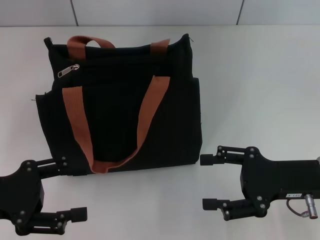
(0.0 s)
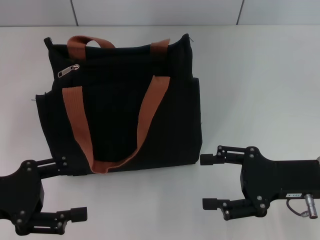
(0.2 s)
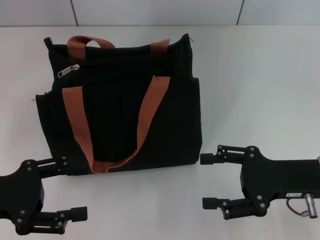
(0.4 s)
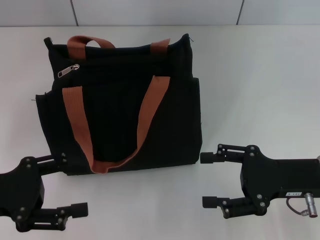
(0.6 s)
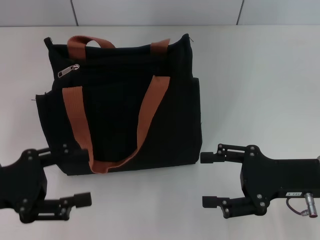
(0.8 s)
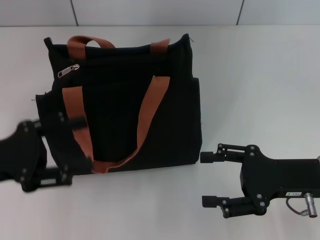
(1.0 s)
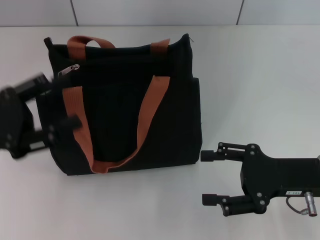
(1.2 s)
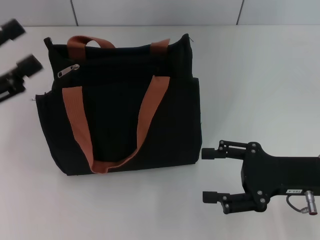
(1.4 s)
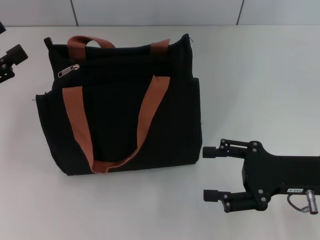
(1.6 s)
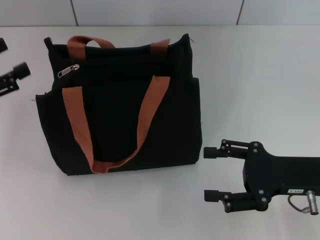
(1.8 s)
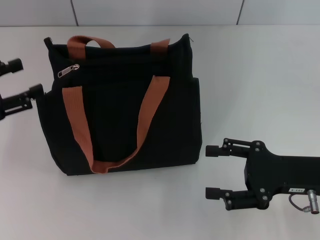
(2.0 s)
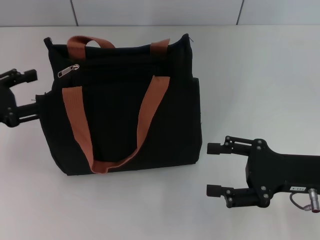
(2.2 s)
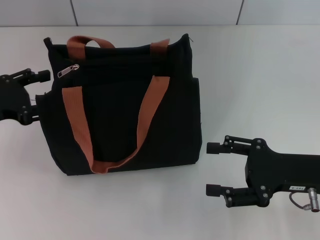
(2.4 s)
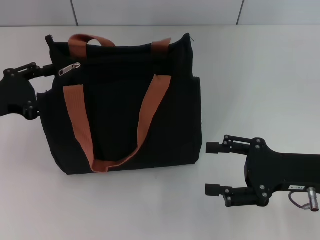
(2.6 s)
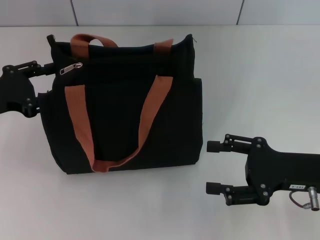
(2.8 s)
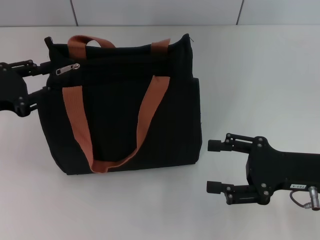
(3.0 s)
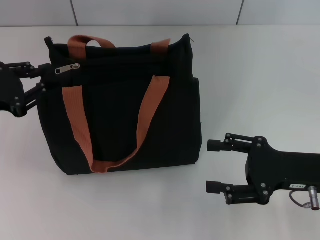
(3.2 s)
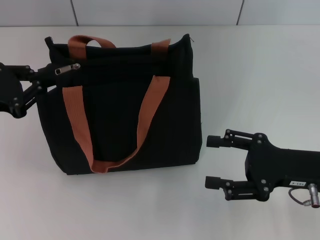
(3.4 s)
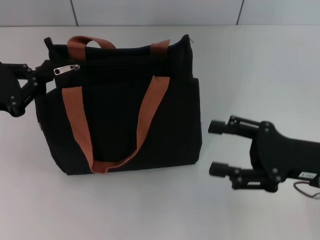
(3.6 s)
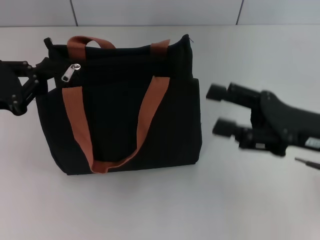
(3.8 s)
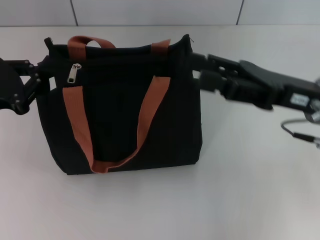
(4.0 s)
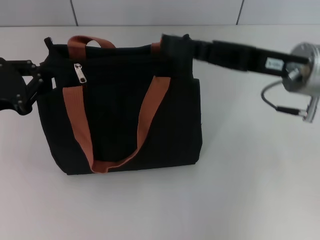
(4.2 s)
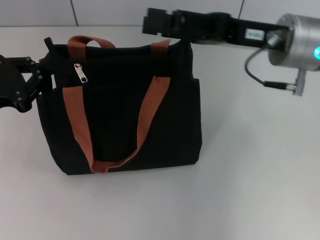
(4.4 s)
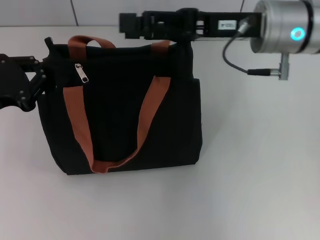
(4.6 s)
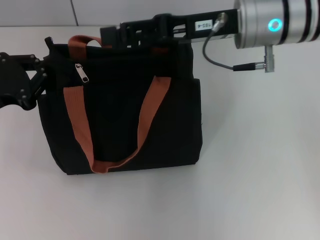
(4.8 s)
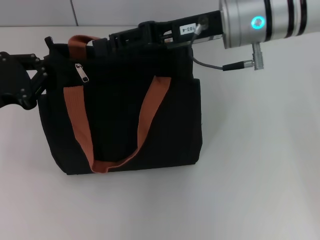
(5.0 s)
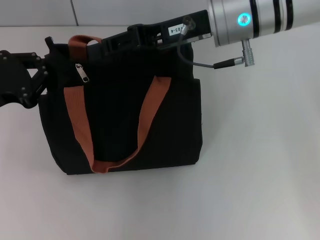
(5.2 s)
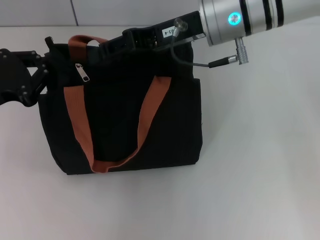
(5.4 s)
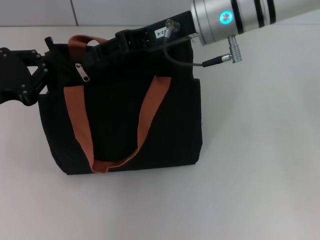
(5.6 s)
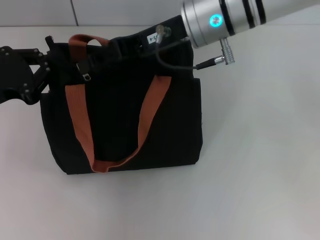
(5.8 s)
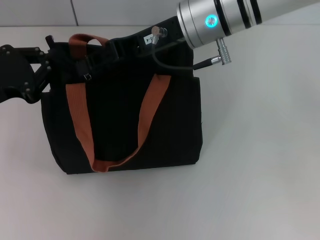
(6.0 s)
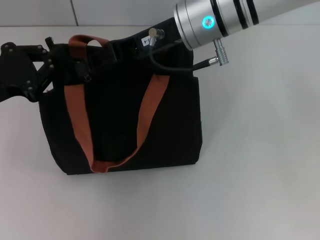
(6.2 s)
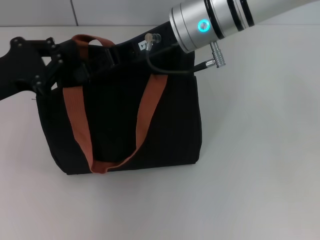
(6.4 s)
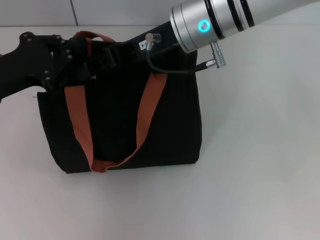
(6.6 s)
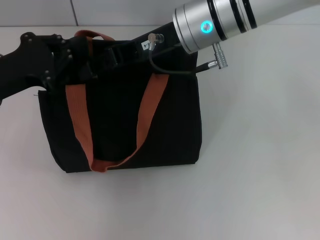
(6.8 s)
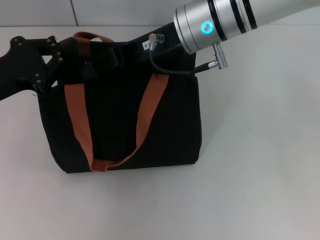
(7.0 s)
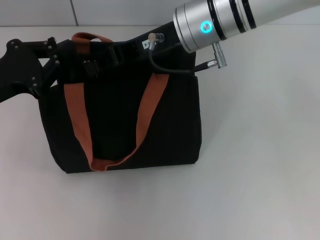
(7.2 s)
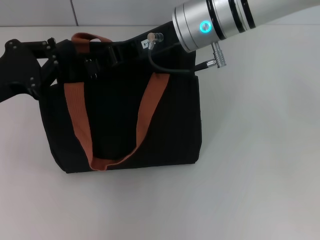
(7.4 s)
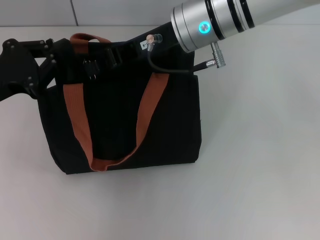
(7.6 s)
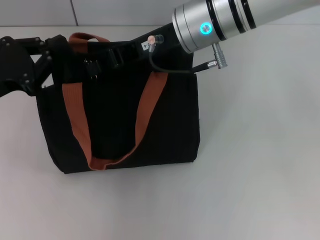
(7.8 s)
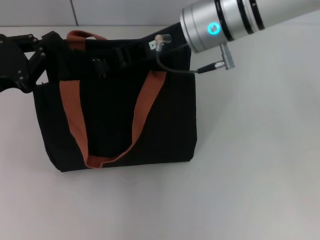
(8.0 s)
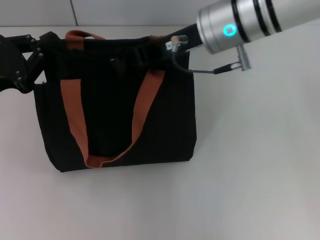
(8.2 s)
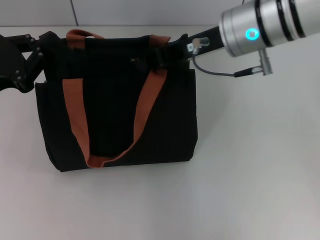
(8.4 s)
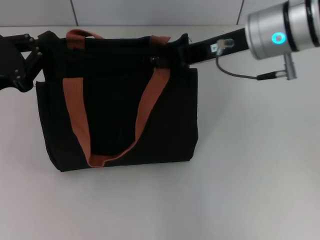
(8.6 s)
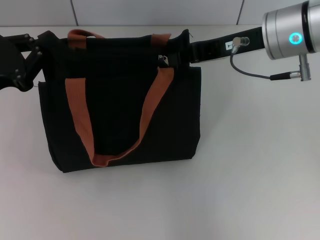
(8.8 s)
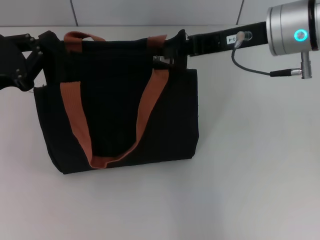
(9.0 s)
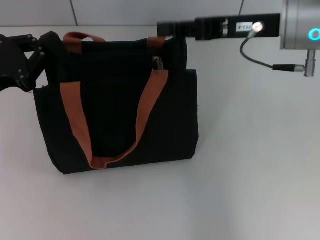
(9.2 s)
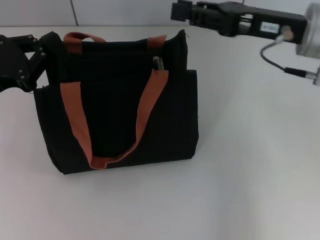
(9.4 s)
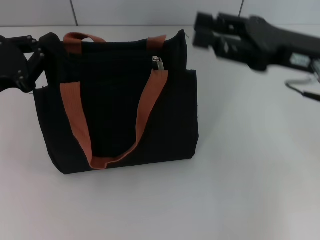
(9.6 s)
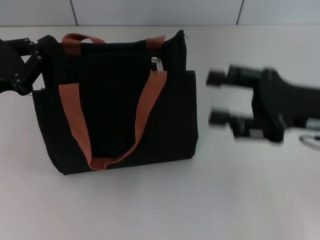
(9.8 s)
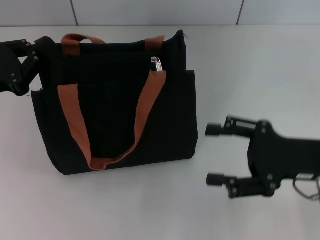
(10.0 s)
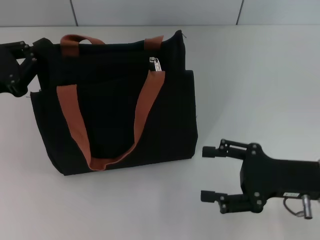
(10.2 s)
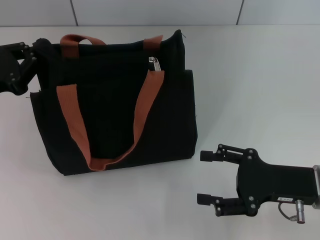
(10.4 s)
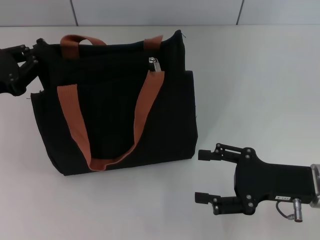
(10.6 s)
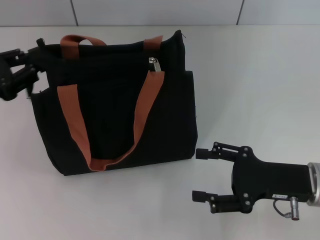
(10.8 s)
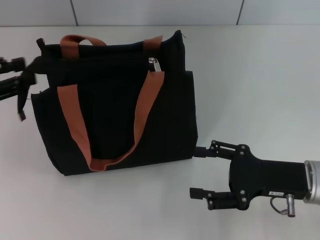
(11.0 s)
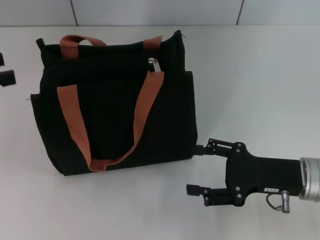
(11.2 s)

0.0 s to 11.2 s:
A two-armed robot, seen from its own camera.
Step, 0.0 to 9.0 s: Pull up the zipper with your right hand.
Step, 9.2 to 11.0 s: Grab the zipper with your left hand.
0.0 to 1.6 s: The left gripper heads forward, covering about 5 cm.
1.6 to 3.2 s: The left gripper closes up.
3.2 to 4.8 s: The right gripper travels forward, upward and to the left by approximately 25 cm. The left gripper closes.
4.8 to 6.4 s: The right gripper shifts about 5 cm to the left, and closes up.
6.4 to 8.0 s: The right gripper closes.
8.0 to 9.6 s: The right gripper goes approximately 15 cm to the right and backward, and opens up.
9.6 to 11.2 s: The left gripper goes some 10 cm to the left and upward, and opens up, while the right gripper is displaced downward and backward by approximately 15 cm, and opens its fingers.

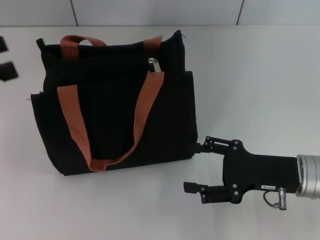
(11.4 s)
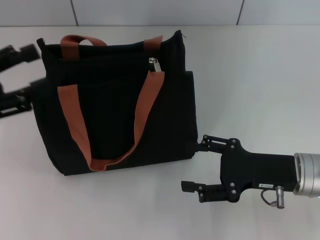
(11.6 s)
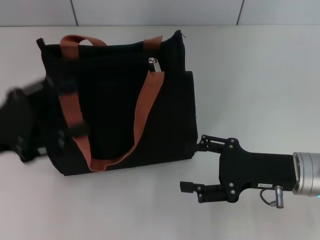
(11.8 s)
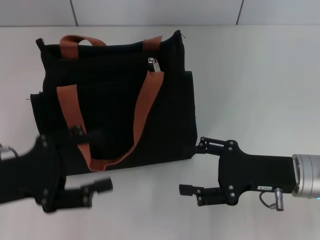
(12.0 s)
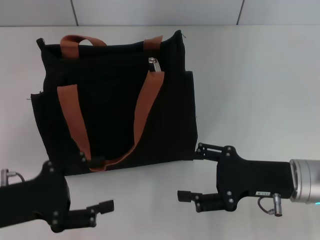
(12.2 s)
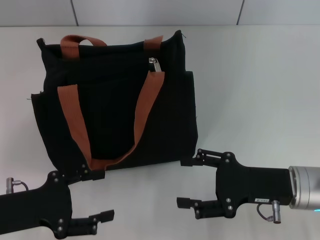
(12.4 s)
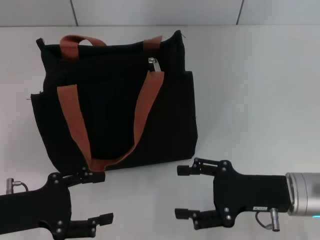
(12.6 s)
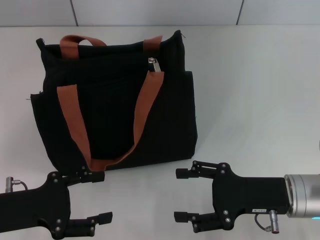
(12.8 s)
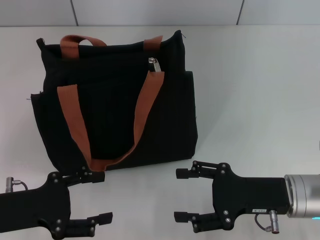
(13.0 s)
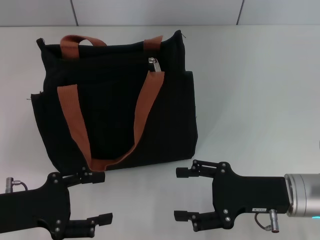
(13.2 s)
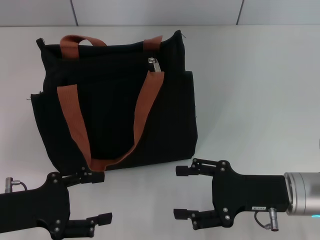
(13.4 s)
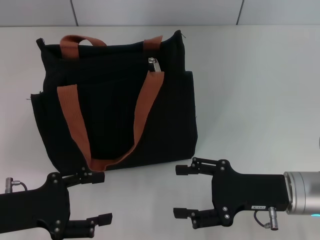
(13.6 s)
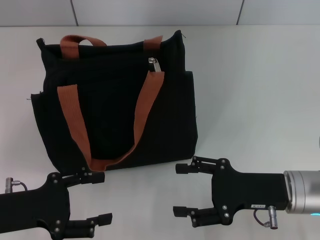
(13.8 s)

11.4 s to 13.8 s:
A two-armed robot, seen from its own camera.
11.4 to 12.6 s: The left gripper travels downward, to the right and backward by some 15 cm.
12.6 to 13.8 s: Both grippers stay put.

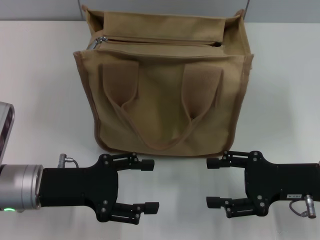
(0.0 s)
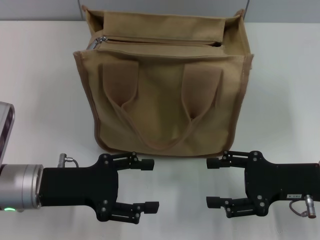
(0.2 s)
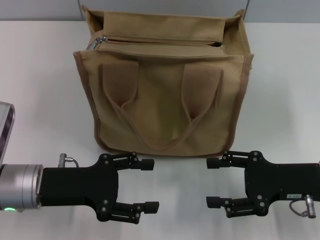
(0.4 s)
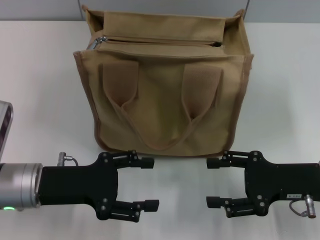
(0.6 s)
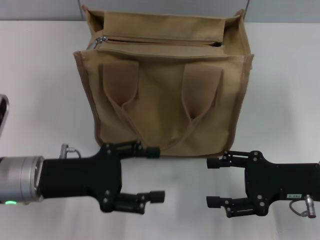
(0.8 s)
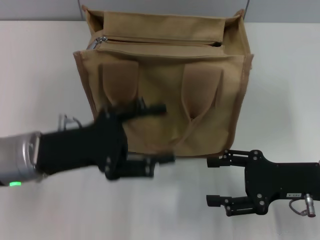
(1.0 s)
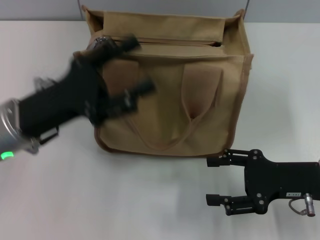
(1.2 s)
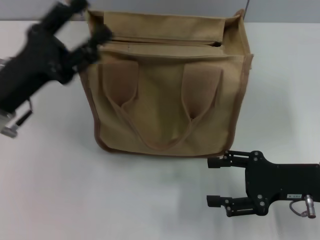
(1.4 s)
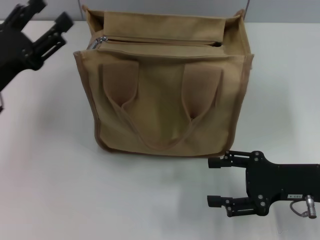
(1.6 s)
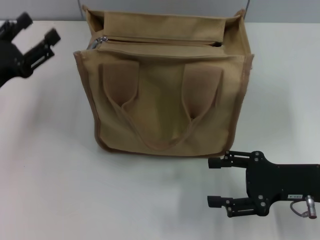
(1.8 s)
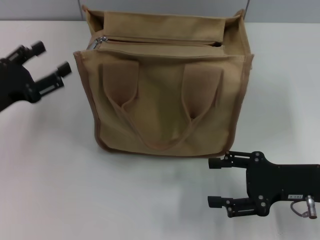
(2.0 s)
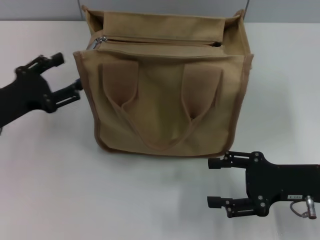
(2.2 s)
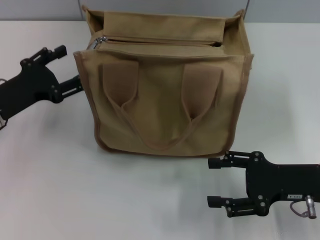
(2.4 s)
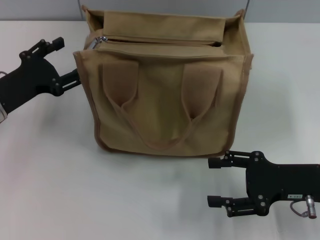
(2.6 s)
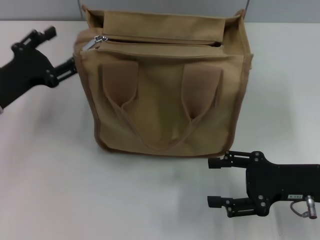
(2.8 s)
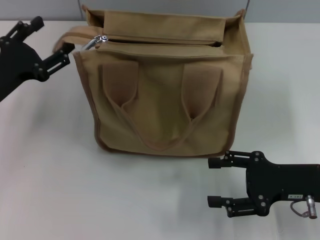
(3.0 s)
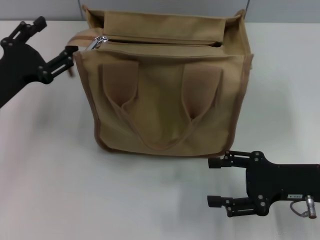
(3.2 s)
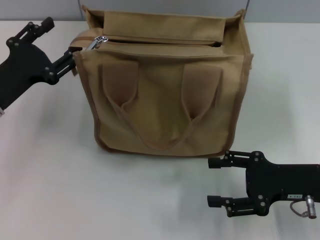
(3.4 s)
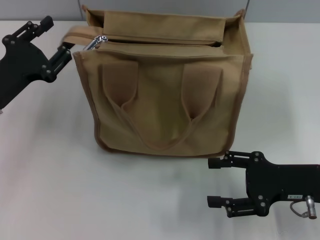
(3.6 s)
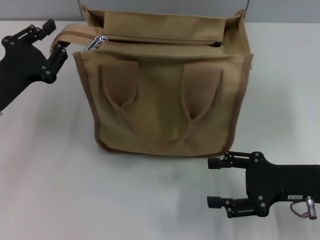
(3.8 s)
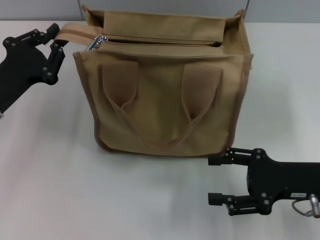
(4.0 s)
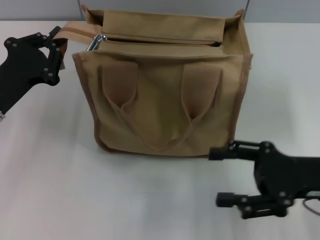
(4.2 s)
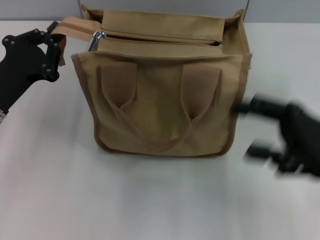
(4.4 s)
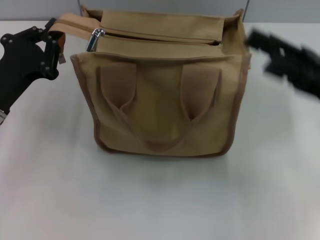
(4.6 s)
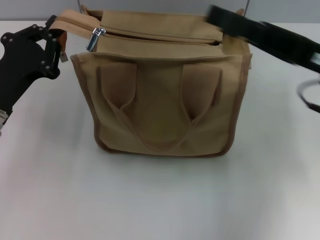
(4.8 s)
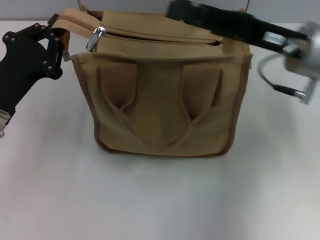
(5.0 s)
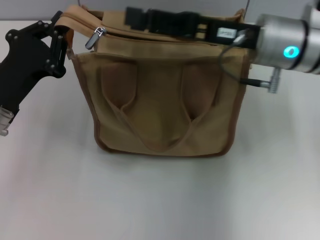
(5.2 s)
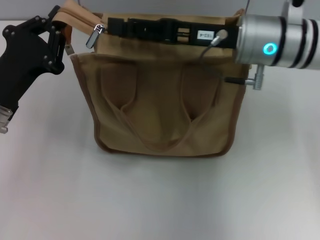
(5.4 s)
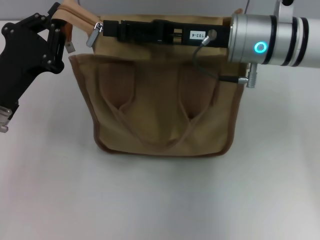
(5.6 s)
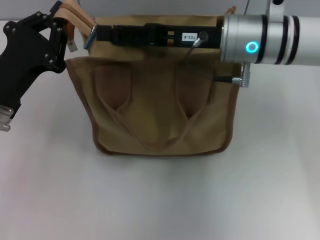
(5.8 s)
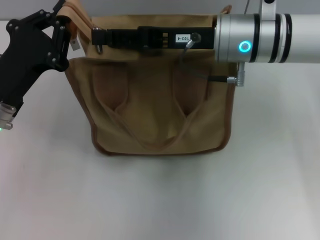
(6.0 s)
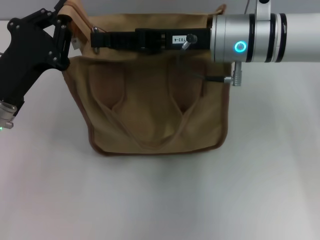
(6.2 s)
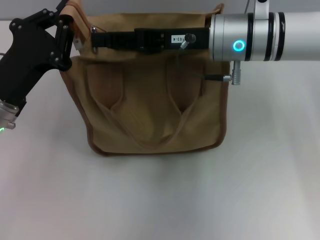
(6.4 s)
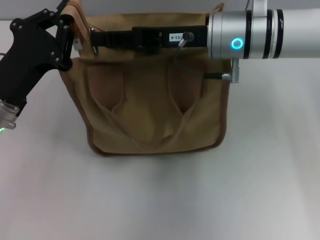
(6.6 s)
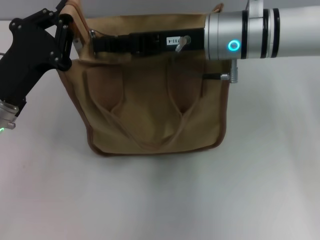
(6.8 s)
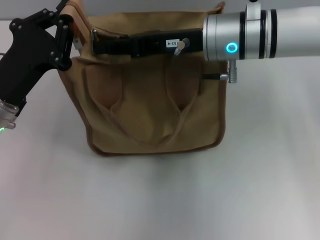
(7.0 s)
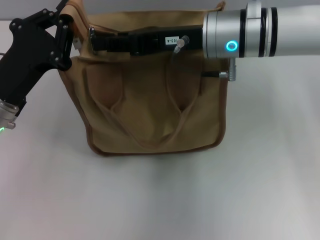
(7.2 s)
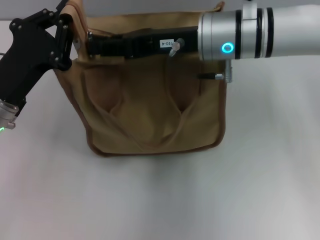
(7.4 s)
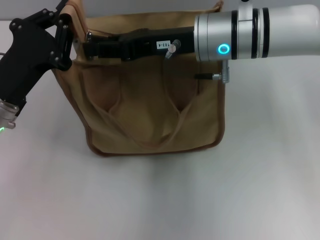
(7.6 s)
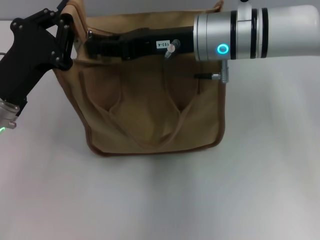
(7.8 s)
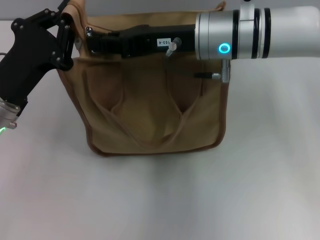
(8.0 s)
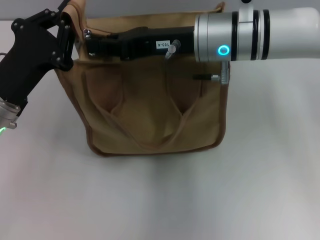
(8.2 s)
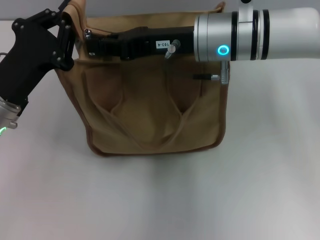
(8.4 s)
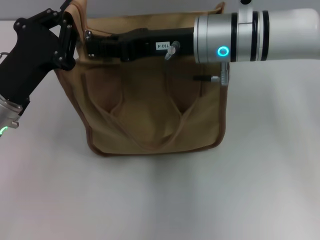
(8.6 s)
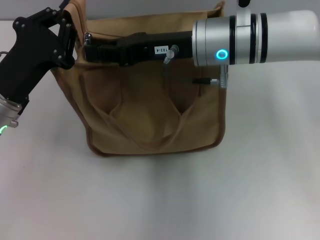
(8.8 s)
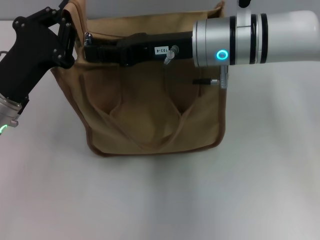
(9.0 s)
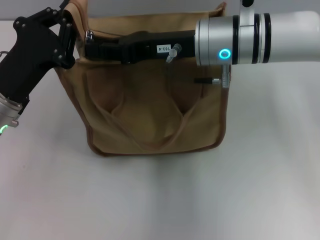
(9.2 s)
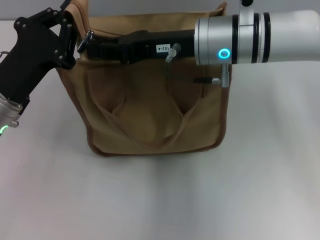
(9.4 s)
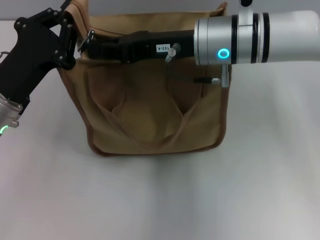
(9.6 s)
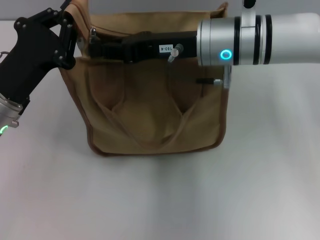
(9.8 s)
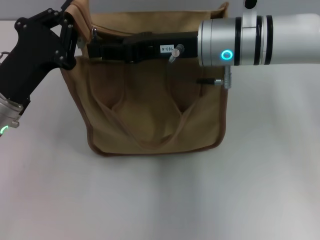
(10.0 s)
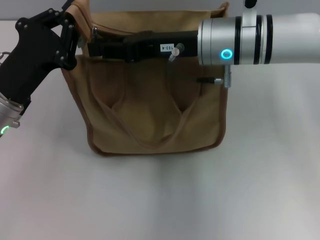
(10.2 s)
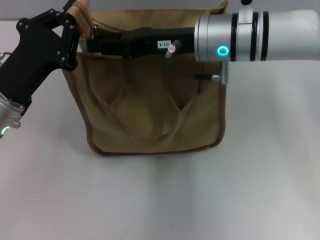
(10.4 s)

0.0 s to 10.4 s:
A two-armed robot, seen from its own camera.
0.0 to 1.4 s: The left gripper shifts some 5 cm upward.
1.4 to 3.0 s: The left gripper heads to the left, covering roughly 5 cm.
3.0 to 4.4 s: The right gripper goes about 5 cm upward; the left gripper closes up.
4.4 to 6.0 s: The right gripper heads to the left and forward, covering about 20 cm.
6.0 to 7.4 s: The right gripper closes its fingers.
7.4 to 10.4 s: Both grippers stay put.
